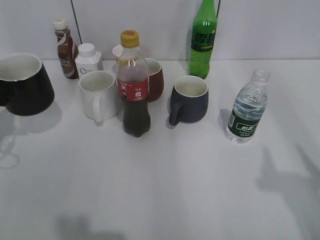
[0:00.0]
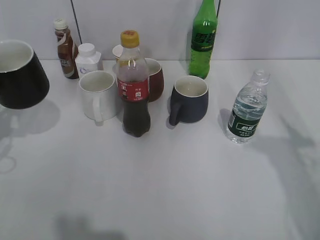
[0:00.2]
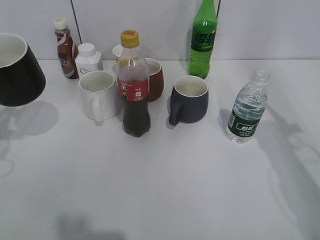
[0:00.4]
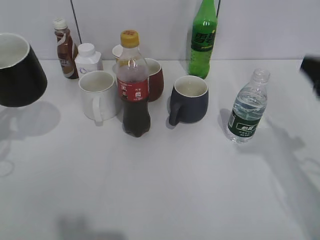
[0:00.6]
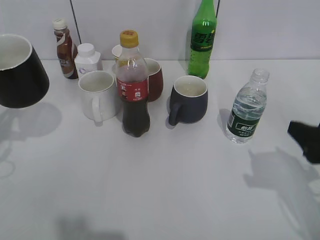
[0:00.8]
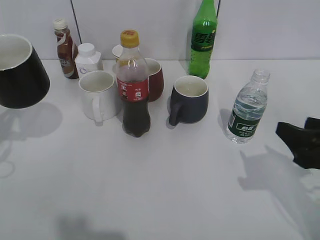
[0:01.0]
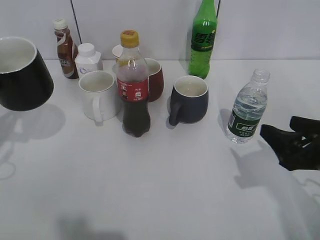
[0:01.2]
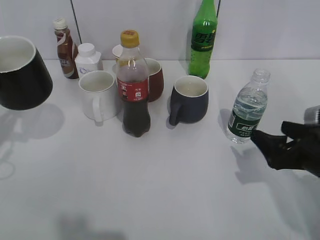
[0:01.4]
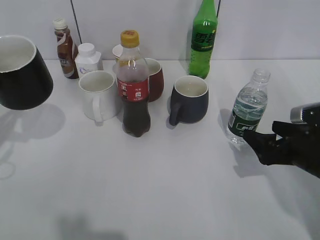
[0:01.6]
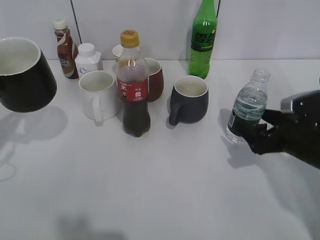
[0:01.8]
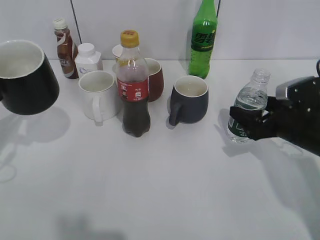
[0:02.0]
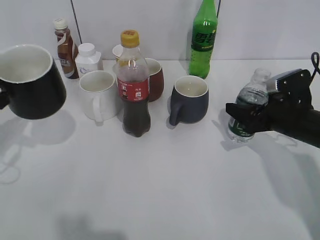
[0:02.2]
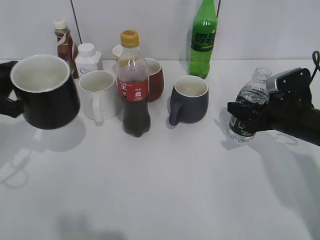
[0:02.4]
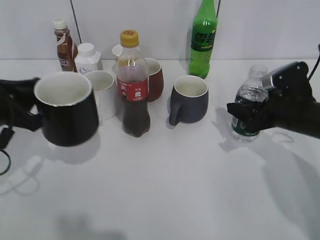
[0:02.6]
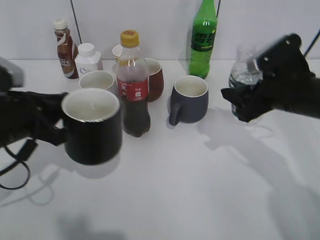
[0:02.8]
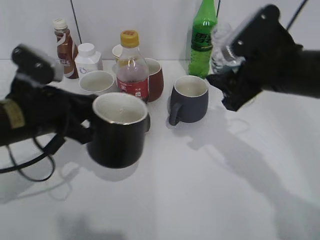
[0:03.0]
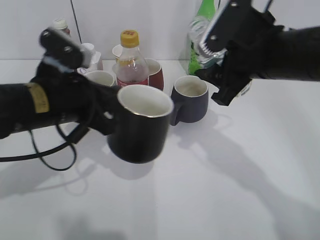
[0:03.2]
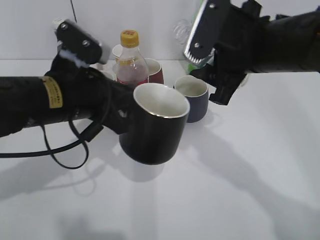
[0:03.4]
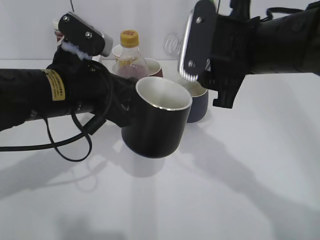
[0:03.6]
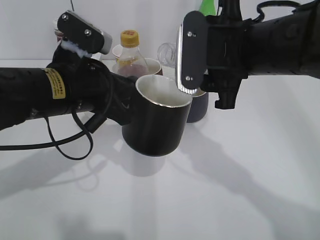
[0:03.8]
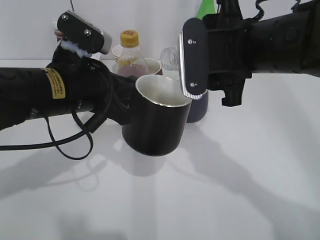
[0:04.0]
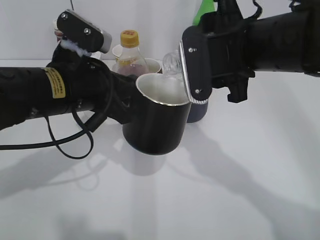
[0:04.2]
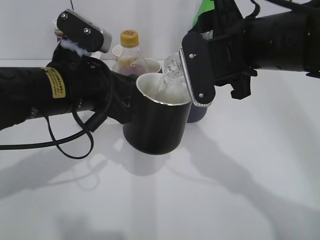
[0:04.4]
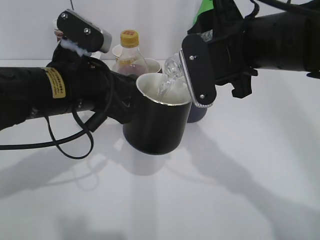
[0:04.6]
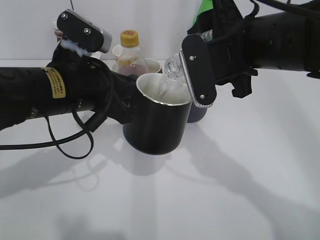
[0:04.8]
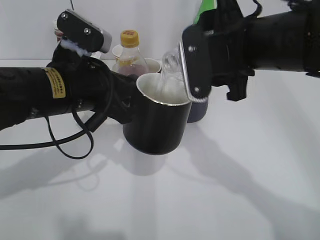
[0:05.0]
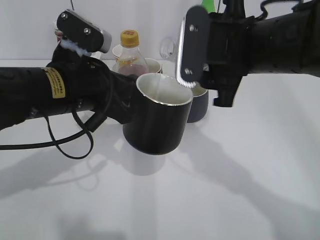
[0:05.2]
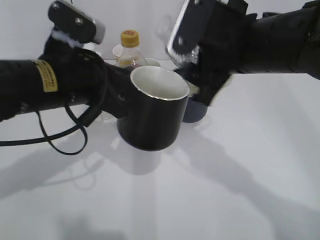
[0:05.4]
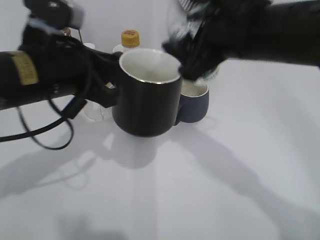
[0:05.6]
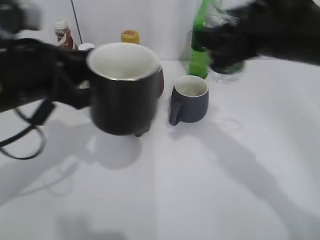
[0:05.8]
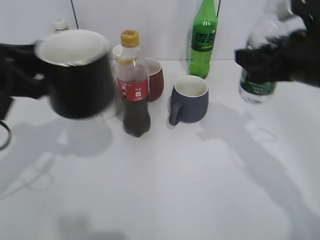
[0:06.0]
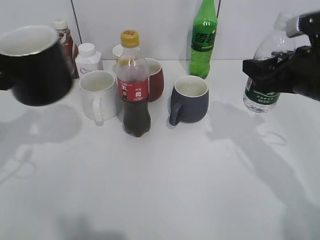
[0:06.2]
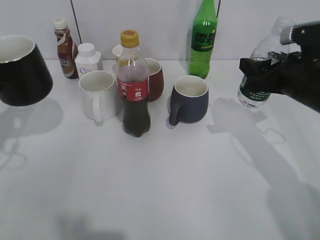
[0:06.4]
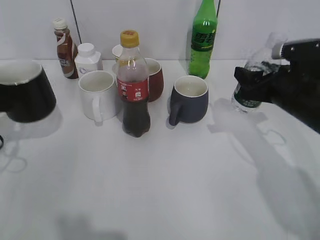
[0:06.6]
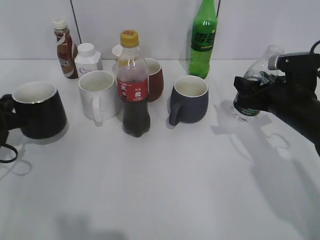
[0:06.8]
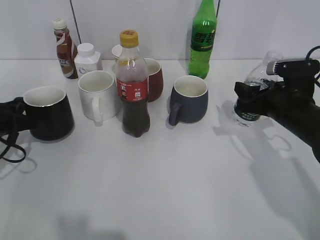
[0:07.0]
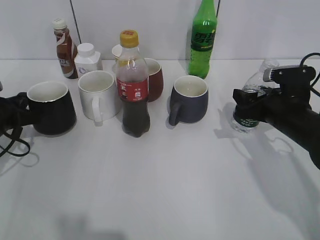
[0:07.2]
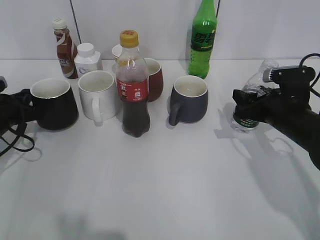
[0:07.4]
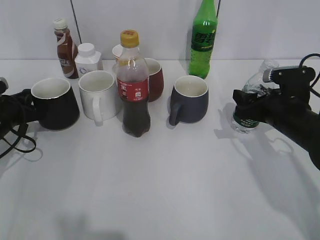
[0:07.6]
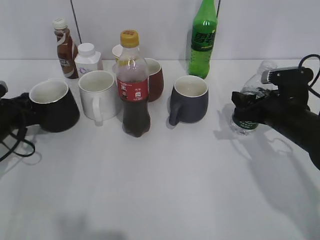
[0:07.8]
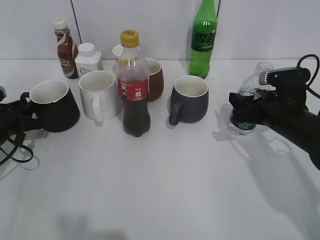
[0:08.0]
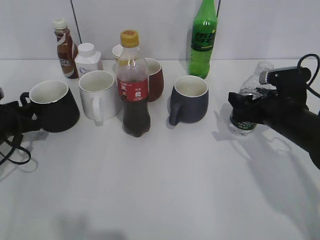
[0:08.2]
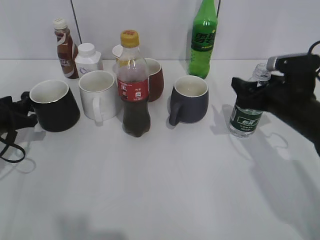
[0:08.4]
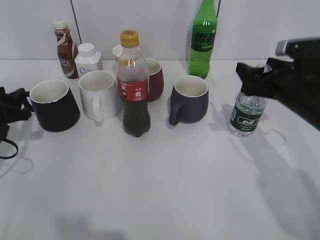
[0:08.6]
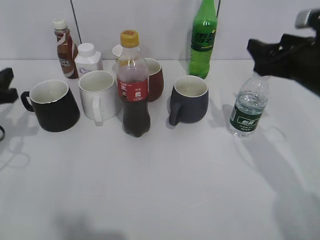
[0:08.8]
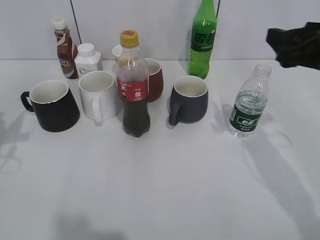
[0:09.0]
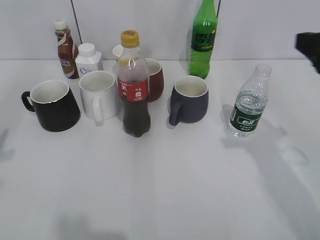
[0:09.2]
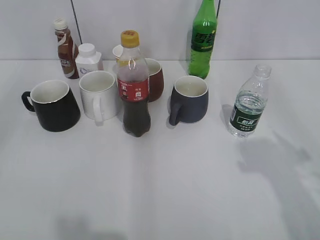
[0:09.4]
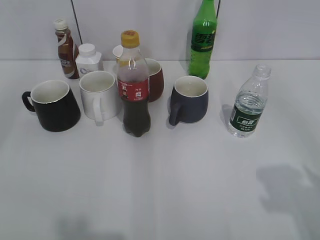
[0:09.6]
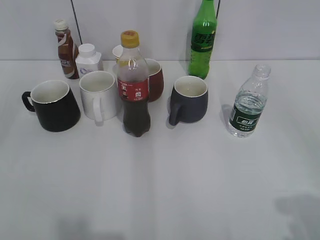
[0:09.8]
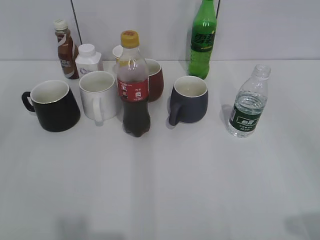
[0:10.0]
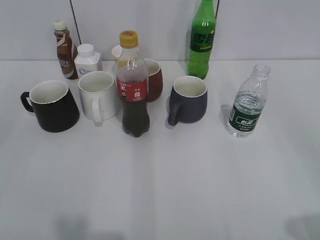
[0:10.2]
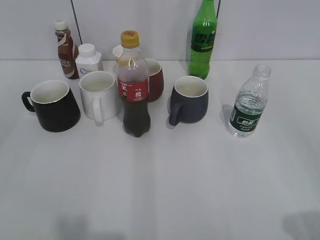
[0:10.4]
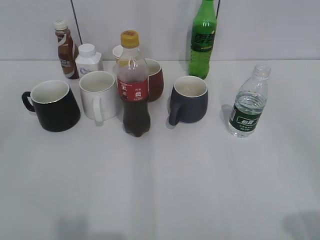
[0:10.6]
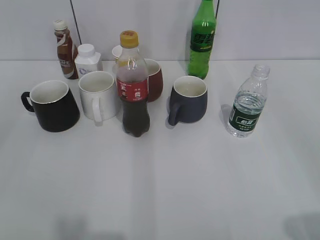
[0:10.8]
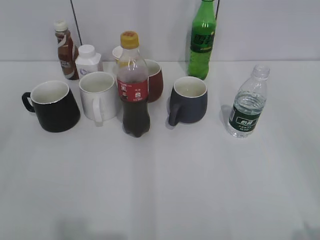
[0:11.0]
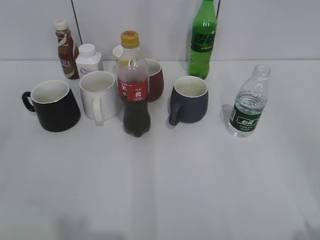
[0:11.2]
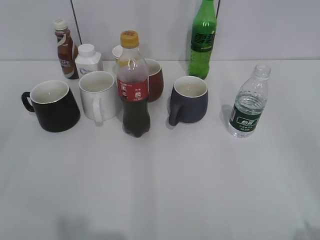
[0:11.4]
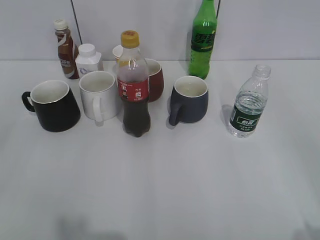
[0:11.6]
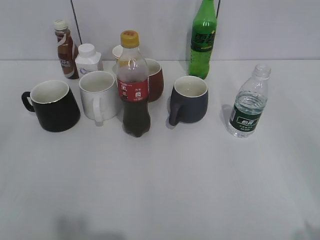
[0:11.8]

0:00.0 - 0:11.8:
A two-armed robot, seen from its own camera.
Step, 0:00.6 - 0:02.2: Grasp the bottle with water with right gripper.
Step, 0:02.4 - 0:05.4: Pour the water from bottle to cup with right gripper.
Step, 0:05.6 - 0:08.4: Place the black cup on the table with left gripper.
0:00.0 - 0:01.4: The left gripper moves roughly 5 cm; the right gripper heads downward and forward, covering about 25 cm, and opens up.
0:01.4 - 0:03.0: The right gripper travels upward, to the left and forward by some 15 cm, and closes up; the left gripper shifts some 15 cm to the right.
0:03.0 - 0:04.4: The right gripper travels to the left by approximately 5 cm. Meanwhile the left gripper shifts roughly 5 cm to the right.
0:04.4 - 0:06.0: The right gripper is displaced to the right by approximately 10 cm. The left gripper moves to the left, about 10 cm.
0:06.0 - 0:07.4: The left gripper shifts about 25 cm downward, forward and to the left. Meanwhile the right gripper goes some 15 cm downward.
0:07.4 - 0:08.8: The right gripper travels upward by approximately 10 cm, and opens its fingers, while the left gripper is displaced upward and backward by roughly 10 cm, and opens up.
0:08.8 - 0:10.4: The right gripper is displaced backward by about 30 cm; the left gripper heads backward and upward, covering some 30 cm.

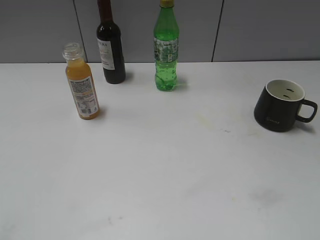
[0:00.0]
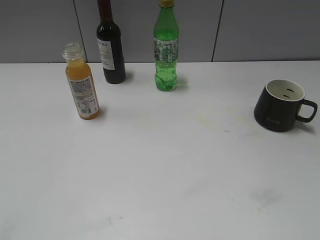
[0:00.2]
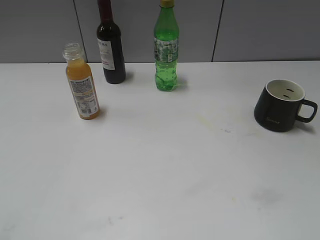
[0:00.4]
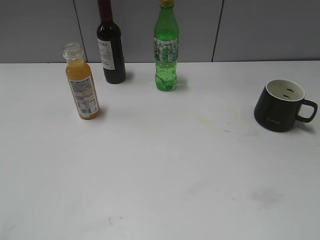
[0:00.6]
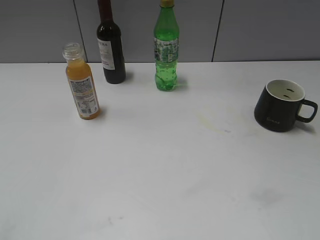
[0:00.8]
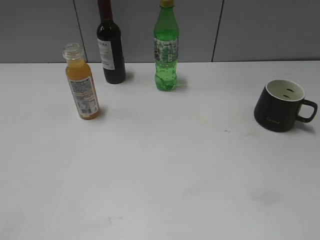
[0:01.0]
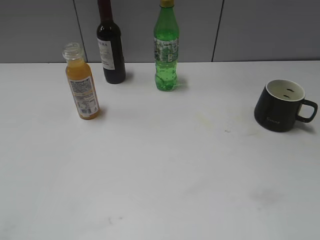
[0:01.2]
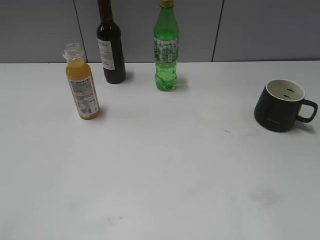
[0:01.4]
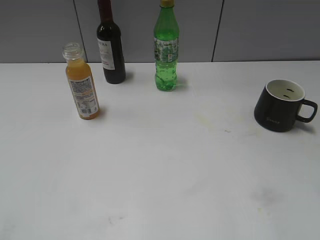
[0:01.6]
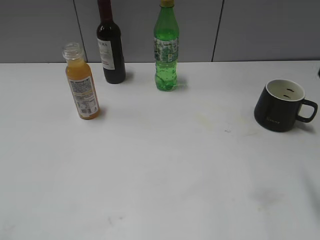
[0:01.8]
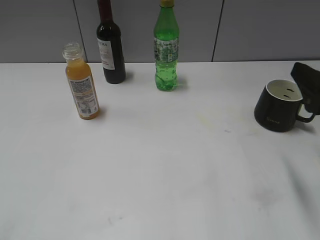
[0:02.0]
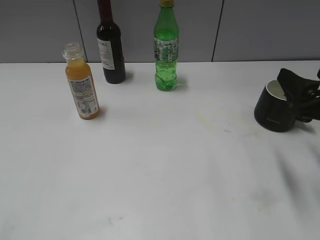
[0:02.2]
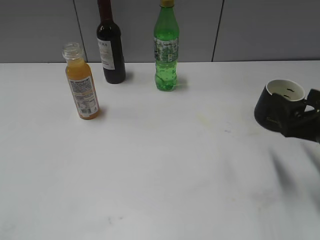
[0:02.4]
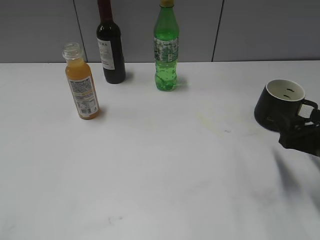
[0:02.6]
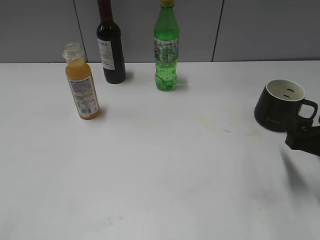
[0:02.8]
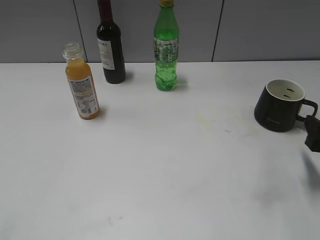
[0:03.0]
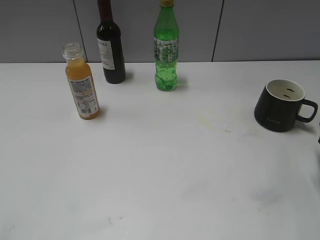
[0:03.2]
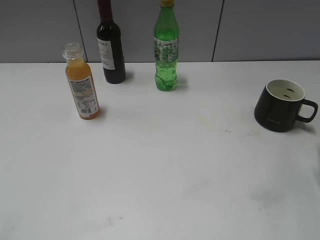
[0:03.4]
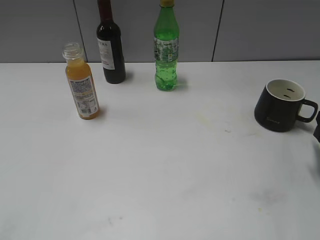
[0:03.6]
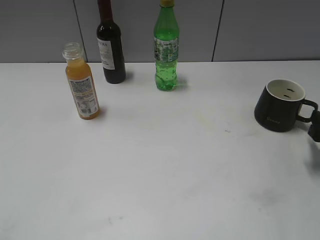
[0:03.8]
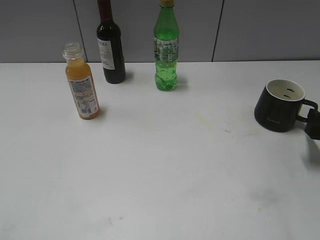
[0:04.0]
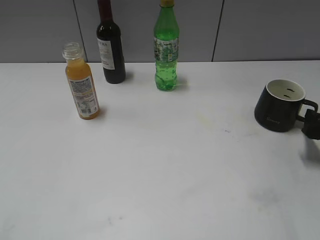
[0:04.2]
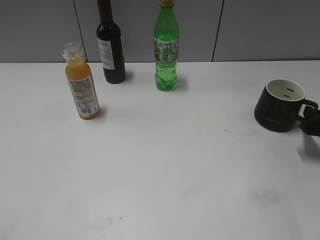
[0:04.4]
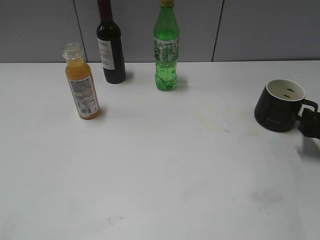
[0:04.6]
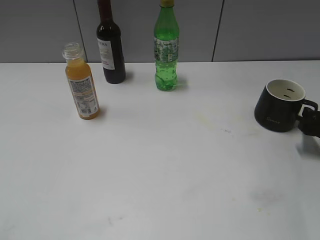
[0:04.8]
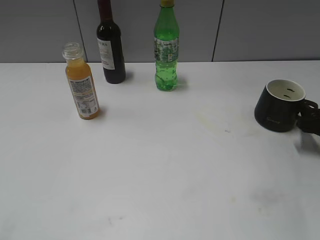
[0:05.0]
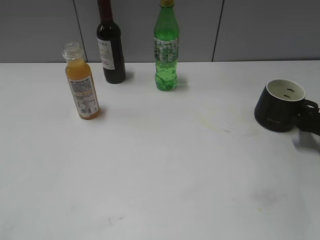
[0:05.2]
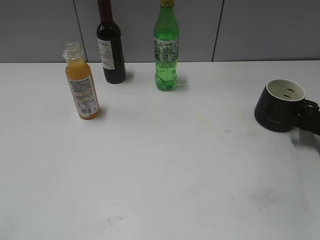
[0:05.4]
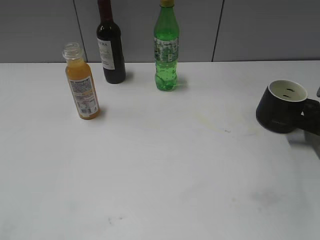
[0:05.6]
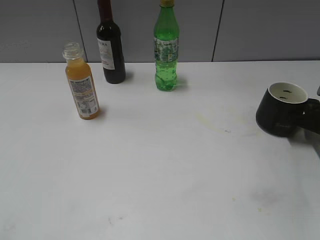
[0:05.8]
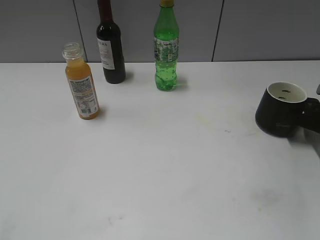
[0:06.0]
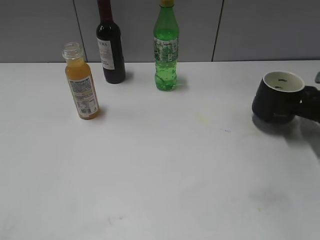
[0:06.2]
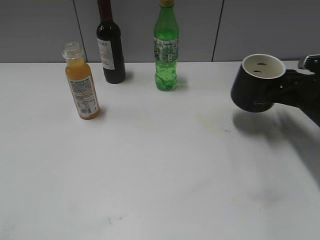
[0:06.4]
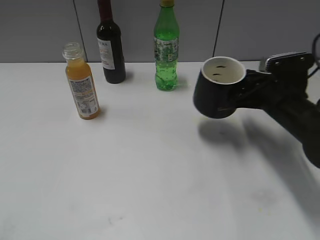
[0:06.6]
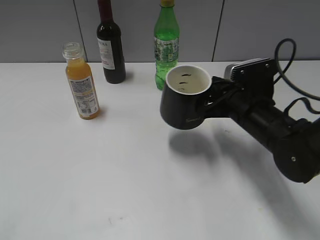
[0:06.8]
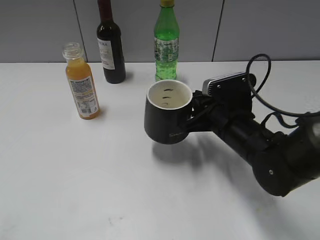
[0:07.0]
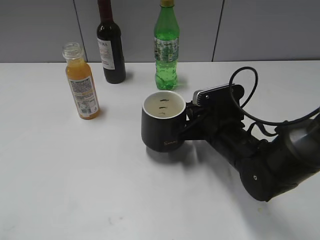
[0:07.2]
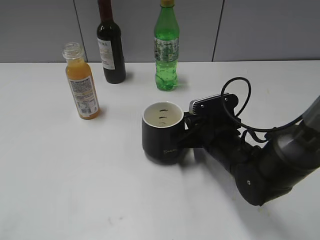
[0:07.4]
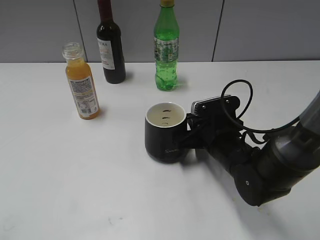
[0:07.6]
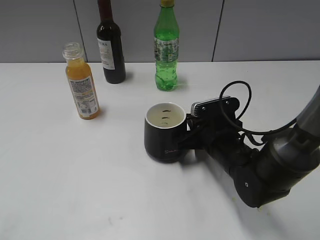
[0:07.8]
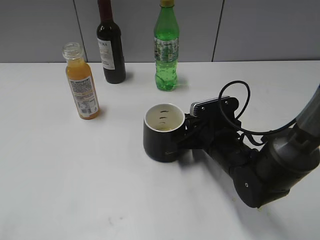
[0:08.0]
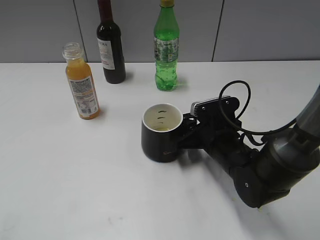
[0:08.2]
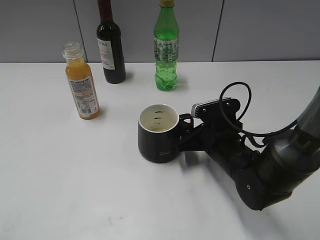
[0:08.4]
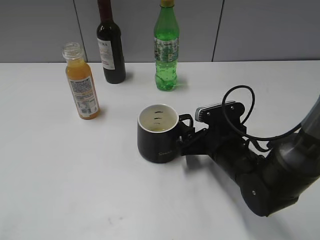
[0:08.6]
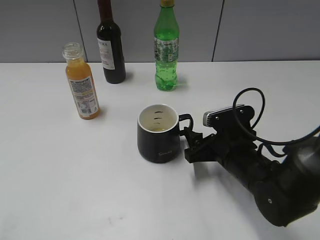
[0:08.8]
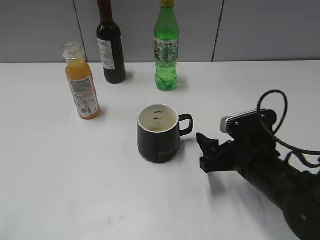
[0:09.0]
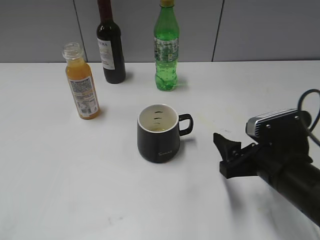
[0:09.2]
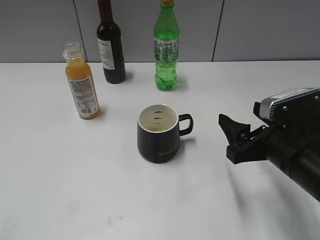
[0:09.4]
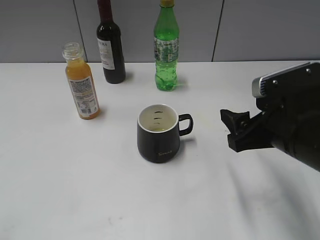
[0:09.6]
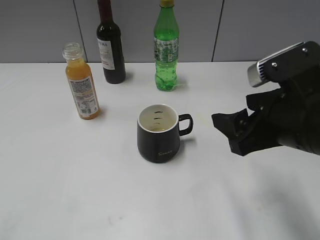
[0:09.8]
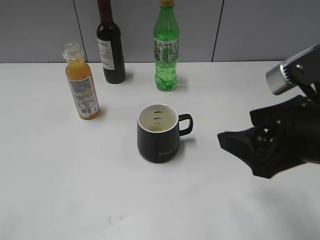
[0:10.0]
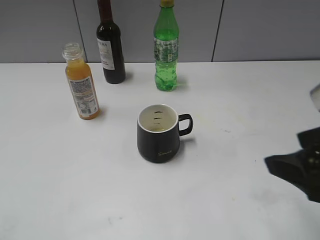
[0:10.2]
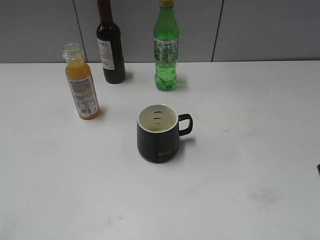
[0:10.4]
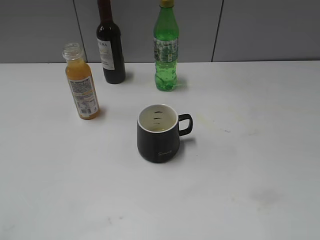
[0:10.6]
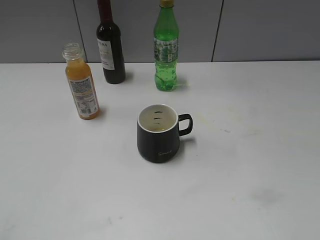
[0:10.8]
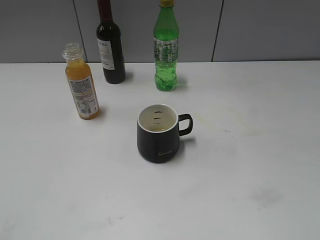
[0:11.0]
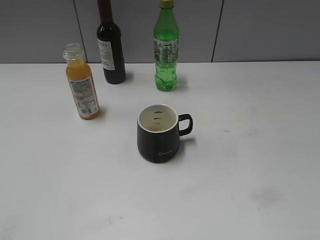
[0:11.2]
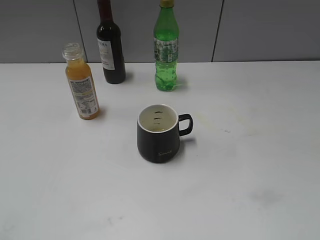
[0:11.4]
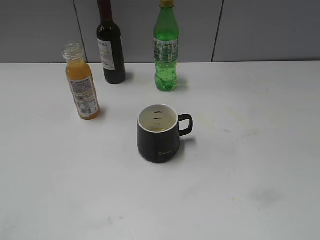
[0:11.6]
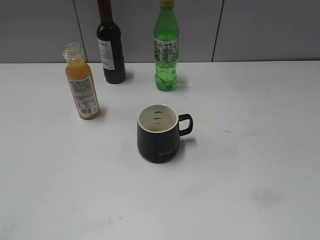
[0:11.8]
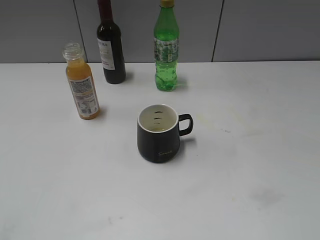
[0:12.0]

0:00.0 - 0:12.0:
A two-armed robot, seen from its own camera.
Step, 0:01.8 - 0:06.0: Grasp the black cup with right gripper.
Step, 0:06.2 - 0:08.4: Place the black cup in the center of view with right gripper.
0:01.6 - 0:03.0: The right gripper travels downward and forward by roughly 20 cm.
0:03.0 - 0:04.4: The right gripper shifts some 5 cm forward.
0:04.4 - 0:06.0: The right gripper shifts by approximately 5 cm, and closes up.
0:06.0 - 0:07.6: The right gripper heads to the left, covering some 20 cm.
0:07.6 - 0:09.0: The right gripper changes place by approximately 5 cm, and opens up.
0:09.0 - 0:10.4: The right gripper is displaced upward, backward and to the right by about 25 cm.
